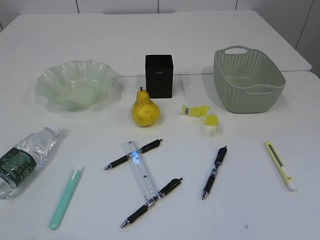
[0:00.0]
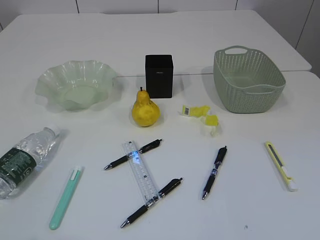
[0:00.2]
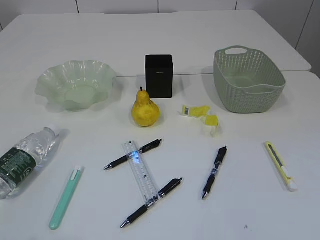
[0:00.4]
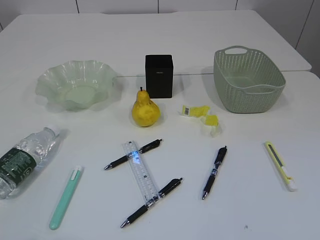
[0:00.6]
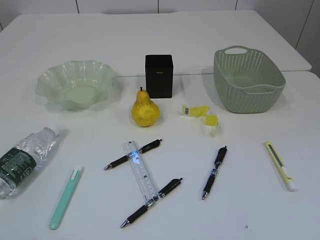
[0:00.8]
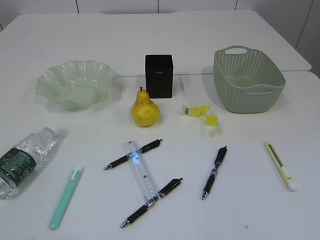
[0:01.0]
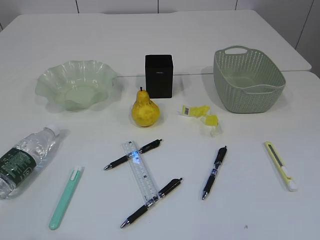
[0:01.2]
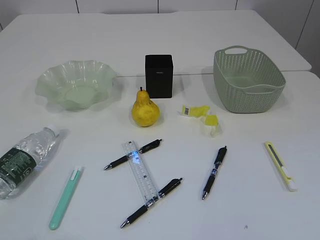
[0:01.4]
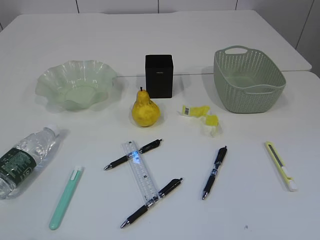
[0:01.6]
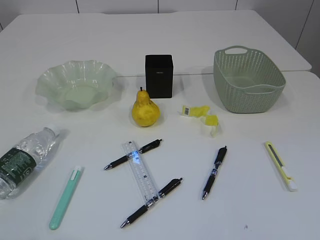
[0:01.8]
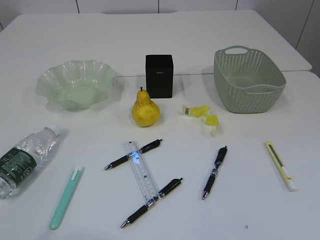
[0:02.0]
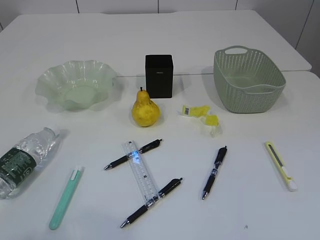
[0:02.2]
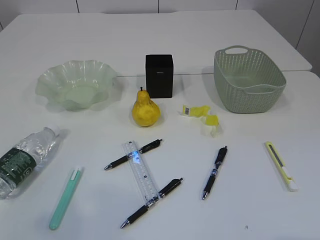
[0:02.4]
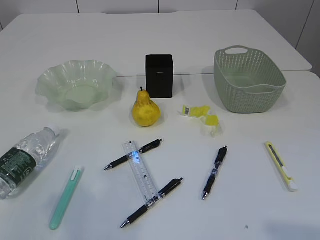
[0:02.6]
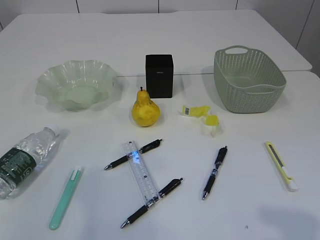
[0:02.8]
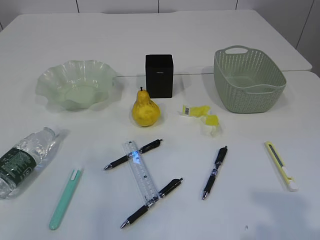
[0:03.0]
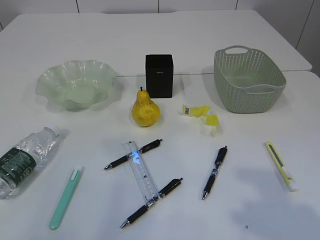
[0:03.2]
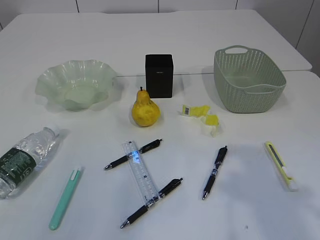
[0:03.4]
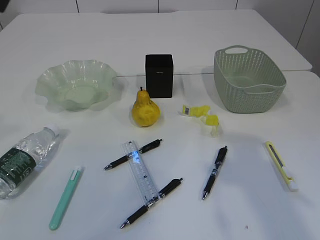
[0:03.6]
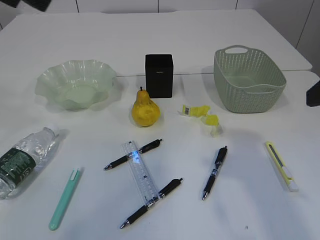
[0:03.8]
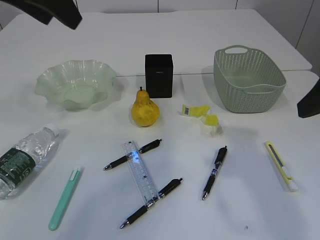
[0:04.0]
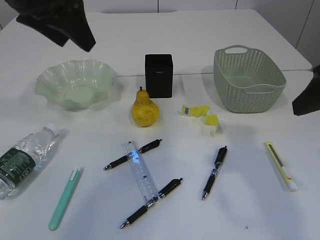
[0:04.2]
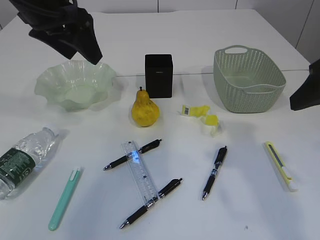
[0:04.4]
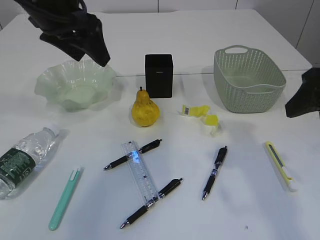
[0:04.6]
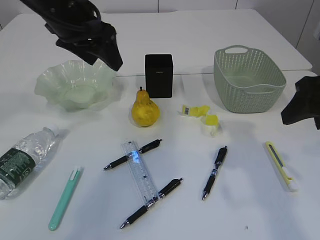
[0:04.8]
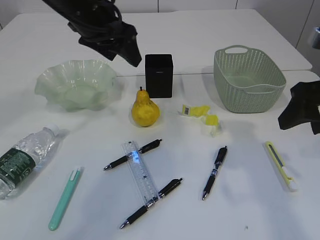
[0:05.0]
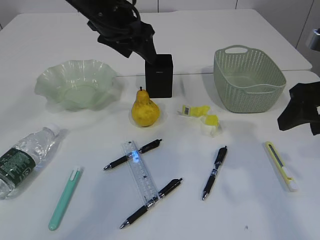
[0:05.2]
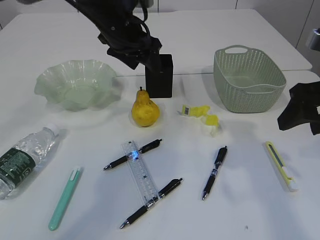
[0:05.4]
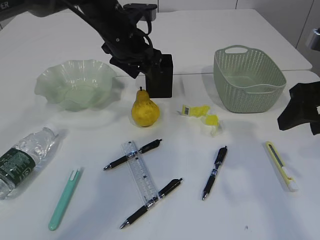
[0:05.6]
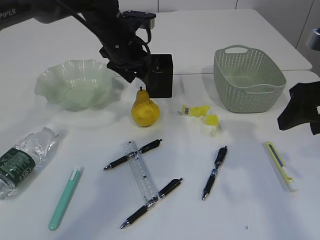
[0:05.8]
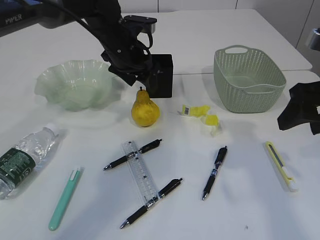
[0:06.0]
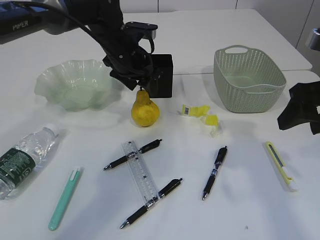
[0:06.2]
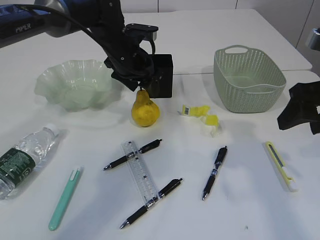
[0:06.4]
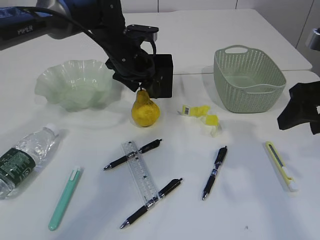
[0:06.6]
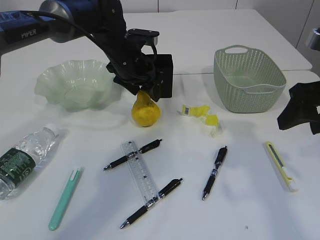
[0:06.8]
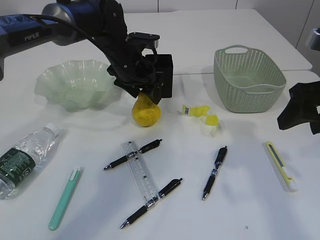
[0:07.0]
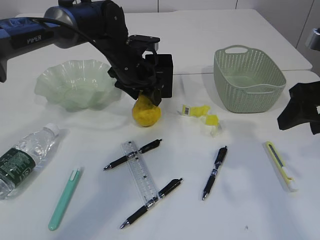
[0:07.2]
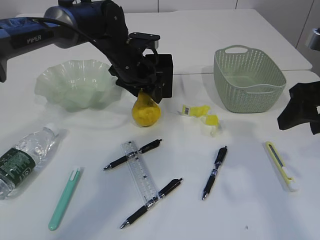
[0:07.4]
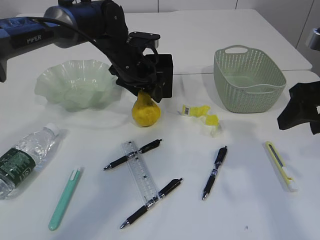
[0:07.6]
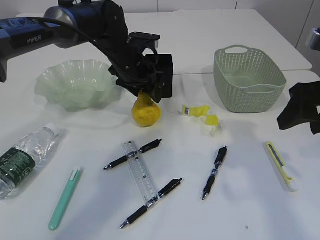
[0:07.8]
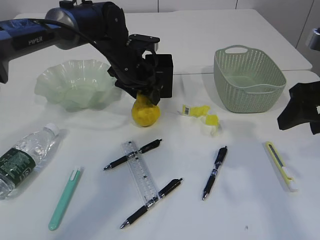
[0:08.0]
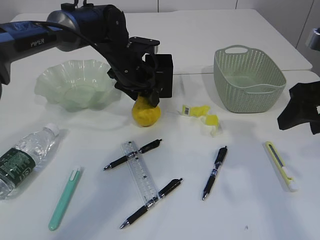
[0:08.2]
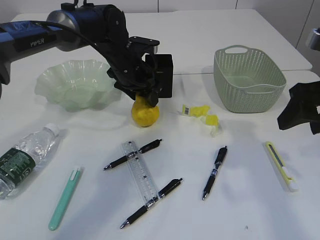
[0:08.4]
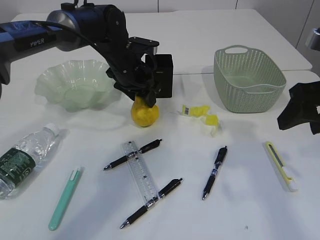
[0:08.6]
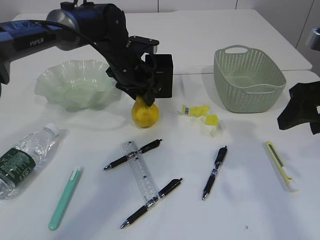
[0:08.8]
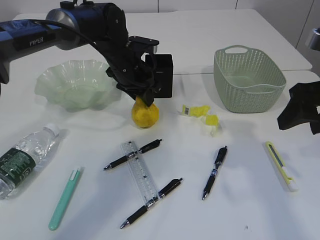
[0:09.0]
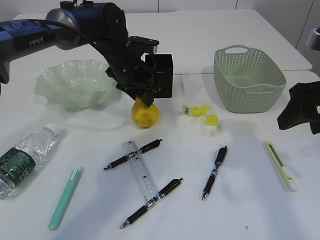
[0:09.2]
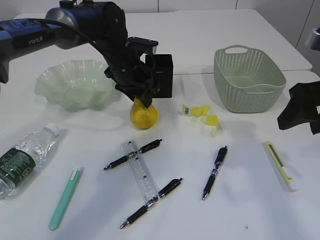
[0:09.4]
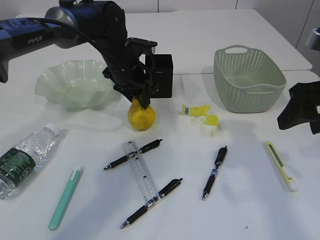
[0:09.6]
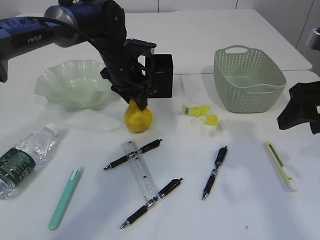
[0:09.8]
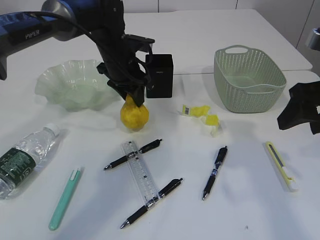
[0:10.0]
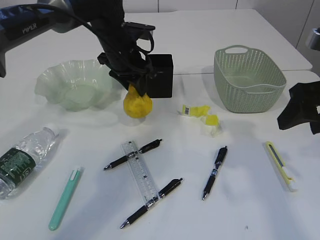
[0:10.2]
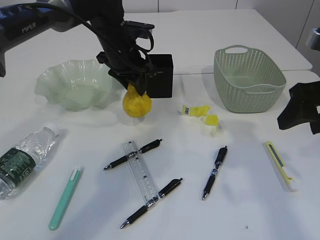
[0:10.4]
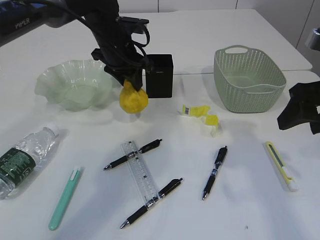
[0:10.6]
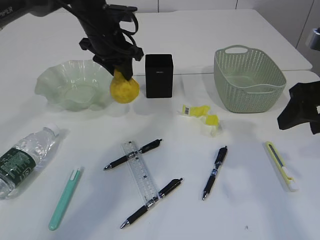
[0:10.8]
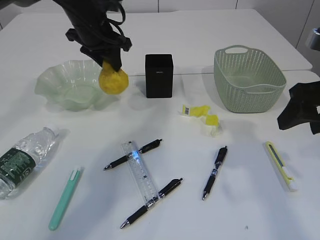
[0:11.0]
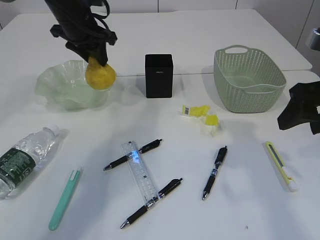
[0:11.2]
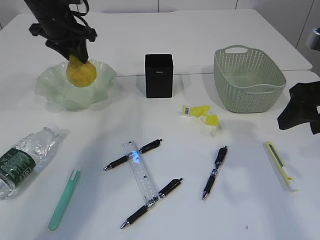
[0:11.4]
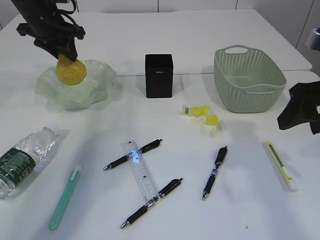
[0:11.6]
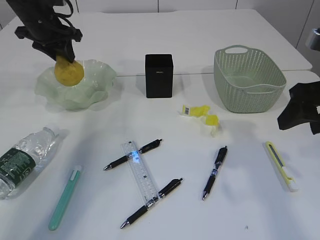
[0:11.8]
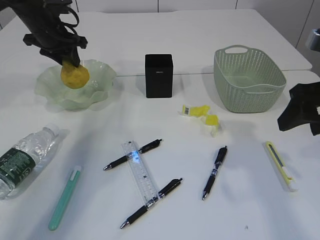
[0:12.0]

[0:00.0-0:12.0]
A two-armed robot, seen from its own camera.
0:01.6 to 0:03.0: The left gripper travels forward and upward by approximately 20 cm.
0:03.0 to 0:04.4: The right gripper travels forward by roughly 15 cm. The left gripper travels forward and to the right by about 25 cm.
0:04.4 to 0:06.0: The left gripper travels downward, forward and to the right by approximately 20 cm.
0:06.0 to 0:07.6: The grippers make only small movements.
0:07.6 to 0:09.0: The left gripper closes its fingers.
0:09.0 to 0:10.4: The grippers make only small movements.
0:10.4 to 0:12.0: The left gripper moves to the left, approximately 15 cm.

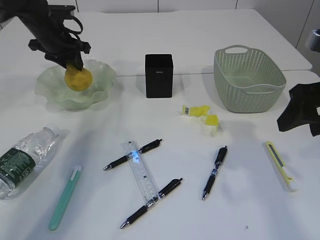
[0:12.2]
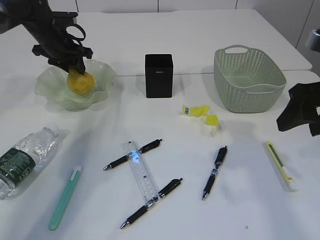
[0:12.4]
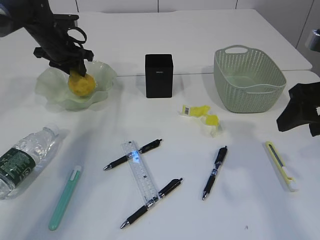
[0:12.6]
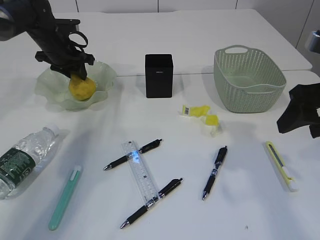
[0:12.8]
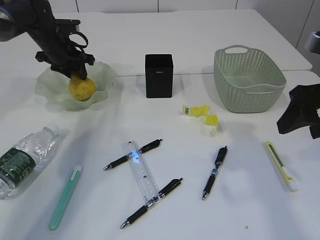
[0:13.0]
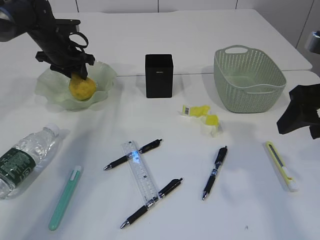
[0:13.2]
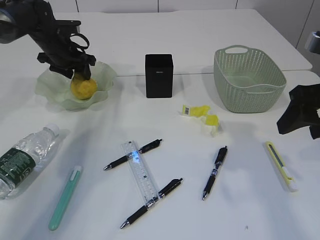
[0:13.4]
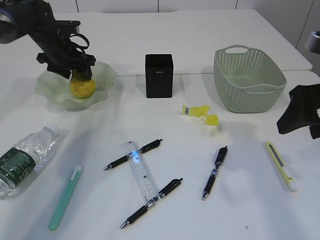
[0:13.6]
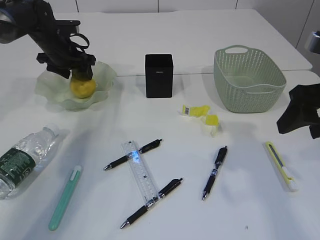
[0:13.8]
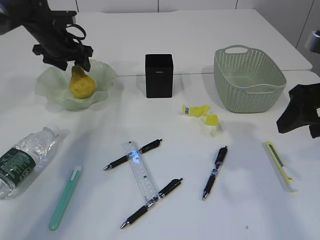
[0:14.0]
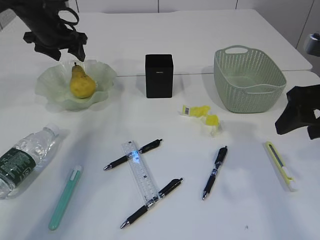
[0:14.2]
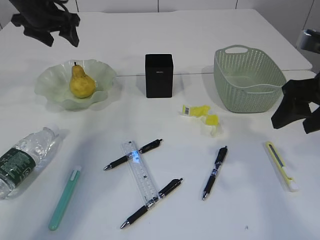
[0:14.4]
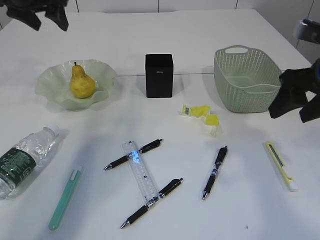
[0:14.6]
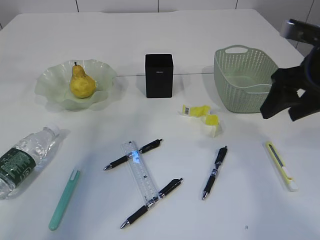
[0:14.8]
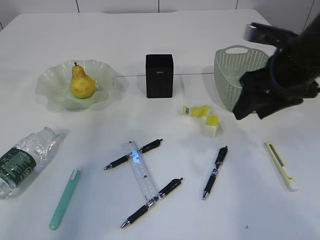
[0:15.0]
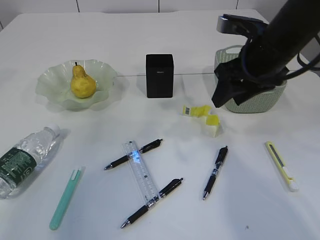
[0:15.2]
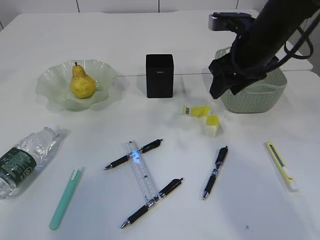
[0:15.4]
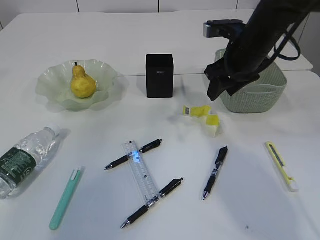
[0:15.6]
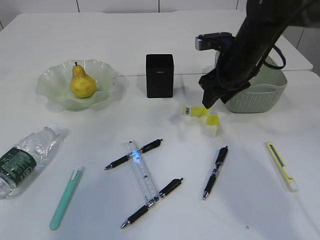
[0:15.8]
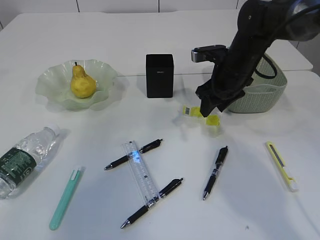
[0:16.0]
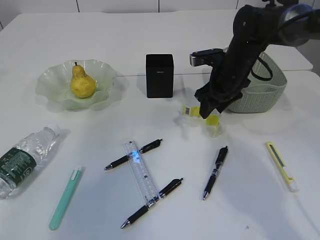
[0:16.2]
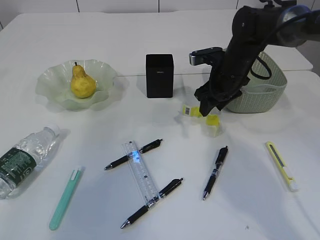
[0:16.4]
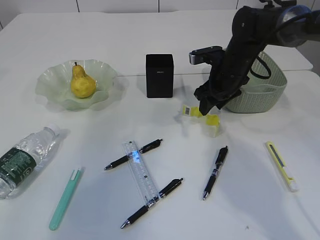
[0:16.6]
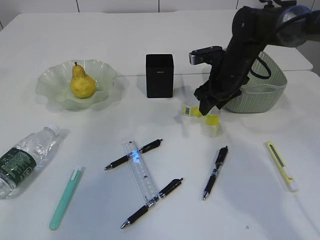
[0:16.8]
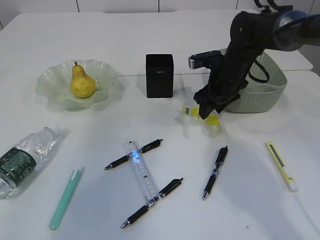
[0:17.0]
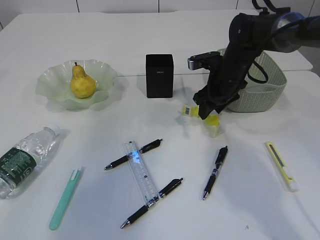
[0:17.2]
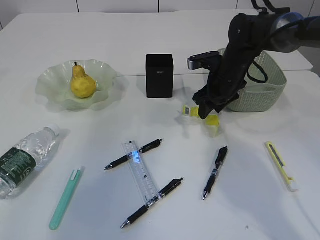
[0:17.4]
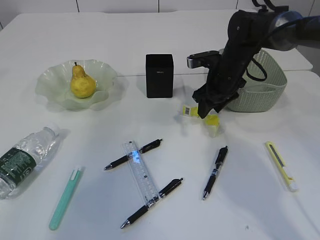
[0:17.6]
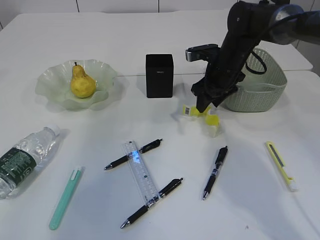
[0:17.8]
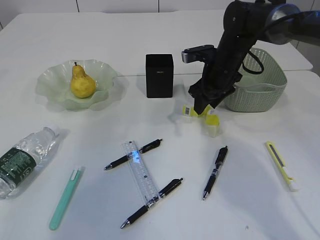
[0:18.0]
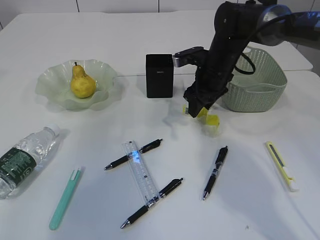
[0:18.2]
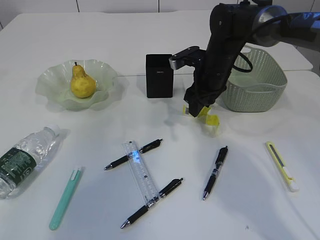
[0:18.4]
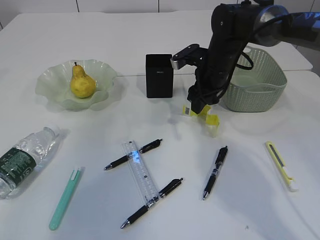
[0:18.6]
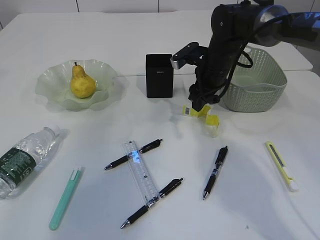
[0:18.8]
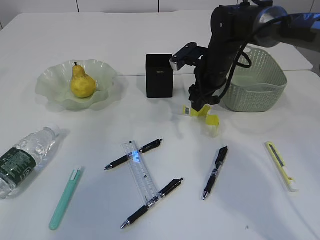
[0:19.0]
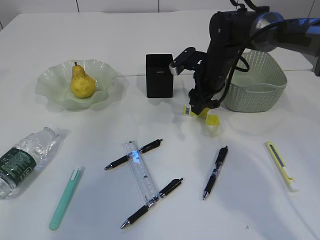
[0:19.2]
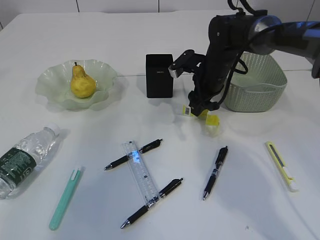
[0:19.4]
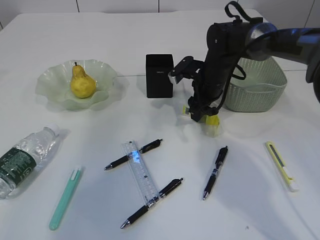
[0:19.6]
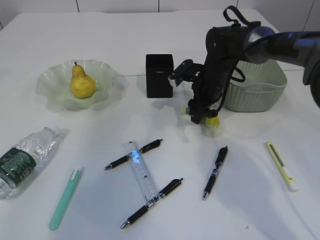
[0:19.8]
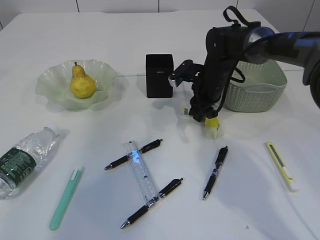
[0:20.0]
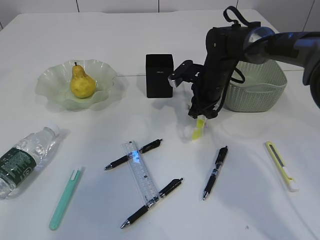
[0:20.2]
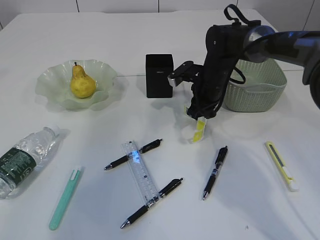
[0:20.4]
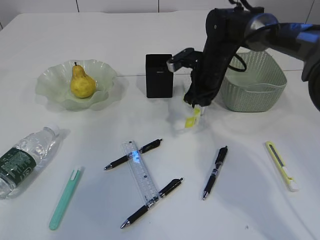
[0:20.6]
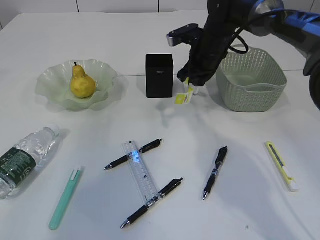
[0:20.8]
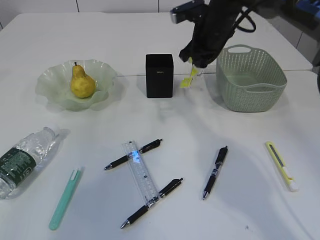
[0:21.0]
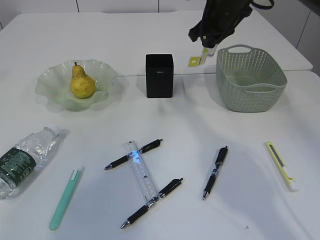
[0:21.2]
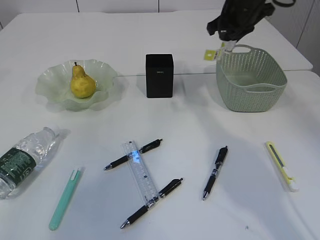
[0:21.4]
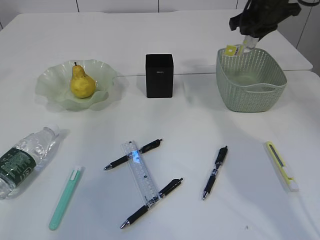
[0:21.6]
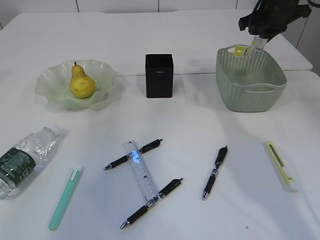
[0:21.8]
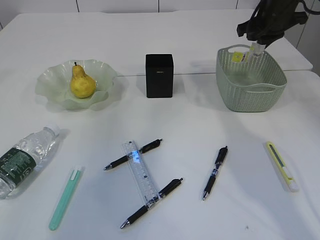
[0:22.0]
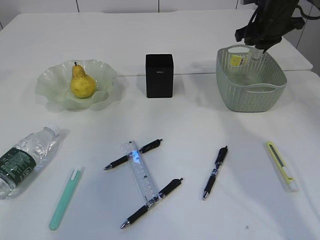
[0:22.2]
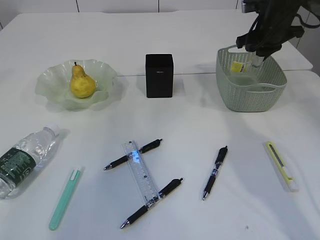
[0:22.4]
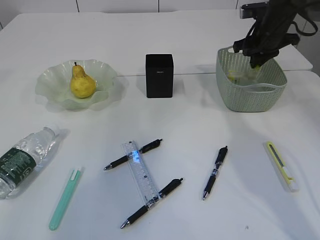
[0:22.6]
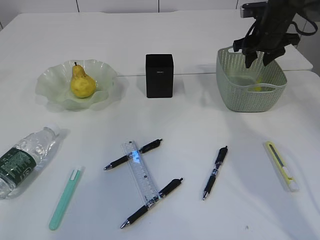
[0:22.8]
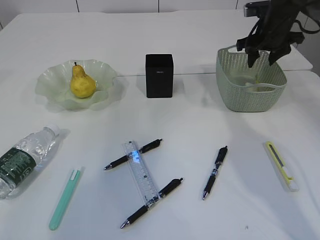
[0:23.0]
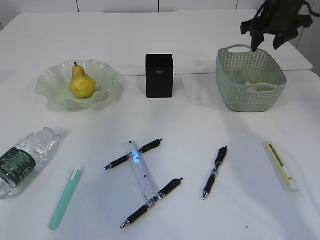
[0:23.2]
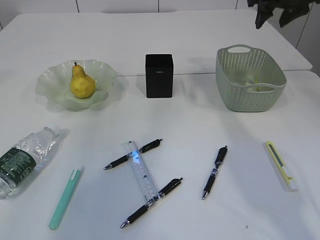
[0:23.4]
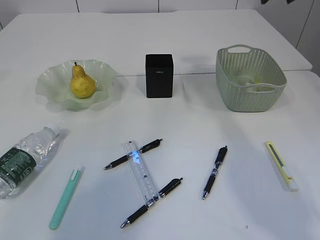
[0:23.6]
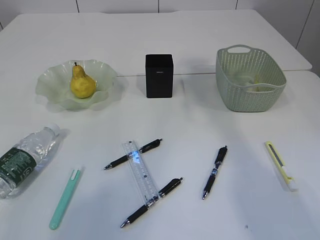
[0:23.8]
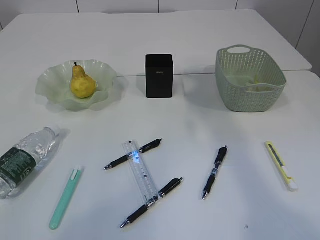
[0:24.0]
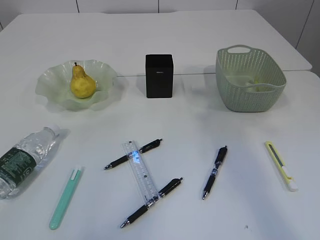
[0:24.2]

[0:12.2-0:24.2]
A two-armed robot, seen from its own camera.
Step, 0:12.2 to 0:14.2: Place the pear in the plate.
Step, 0:14.4 to 0:20.6: Pick up the plastic.
Step, 0:20.8 to 0:23.2: Place the plastic in the basket.
0:12.2 to 0:13.8: The left gripper opens up.
0:13.8 to 0:15.2: The right gripper goes approximately 10 cm forward and to the left, while the left gripper is displaced upward and backward by about 35 cm.
0:15.2 to 0:16.6: The left gripper moves roughly 5 cm; the right gripper travels forward and downward by about 15 cm.
0:16.6 to 0:18.2: The grippers stay close to where they were, moving slightly.
0:18.2 to 0:19.8: The grippers make only small movements.
0:19.8 to 0:21.2: The right gripper shifts approximately 15 cm upward, and closes up.
0:21.2 to 0:22.6: The right gripper travels to the right and downward by approximately 15 cm.
0:22.6 to 0:24.2: The left gripper is displaced backward by some 10 cm, while the right gripper travels backward and upward by about 35 cm, and opens.
